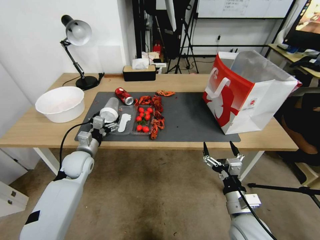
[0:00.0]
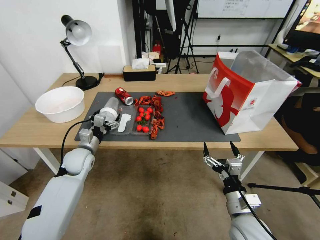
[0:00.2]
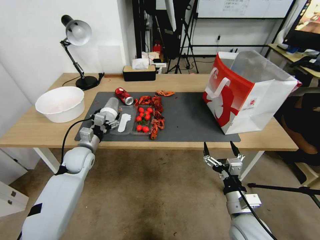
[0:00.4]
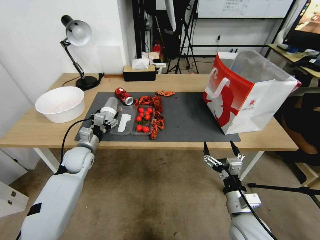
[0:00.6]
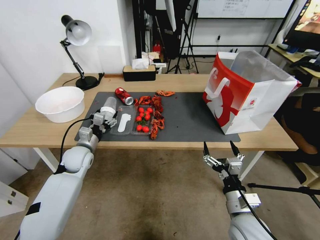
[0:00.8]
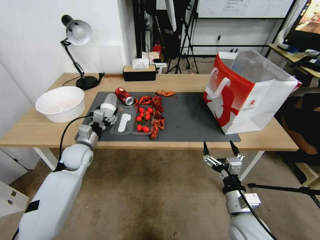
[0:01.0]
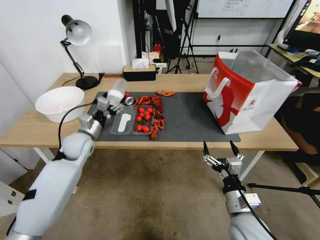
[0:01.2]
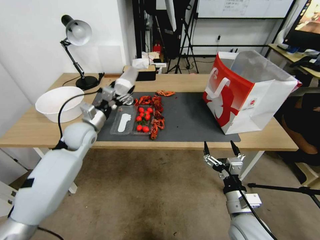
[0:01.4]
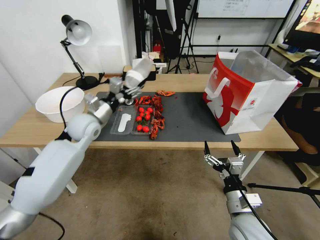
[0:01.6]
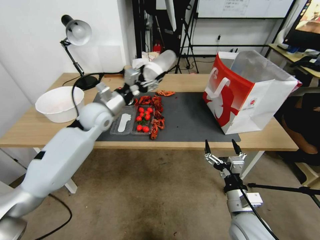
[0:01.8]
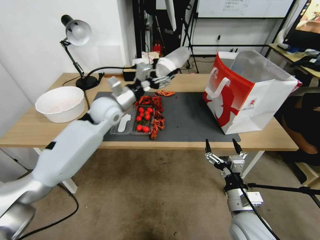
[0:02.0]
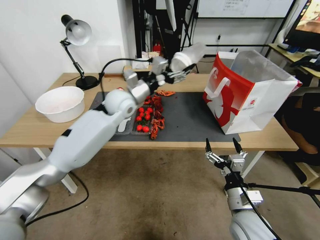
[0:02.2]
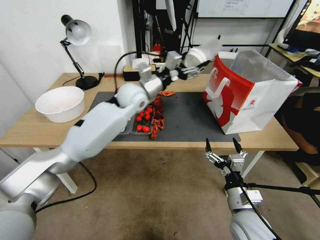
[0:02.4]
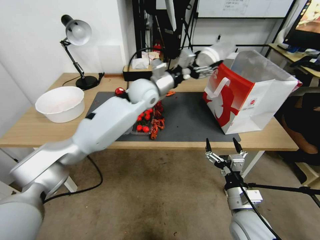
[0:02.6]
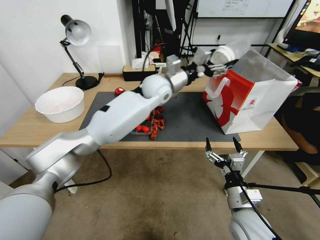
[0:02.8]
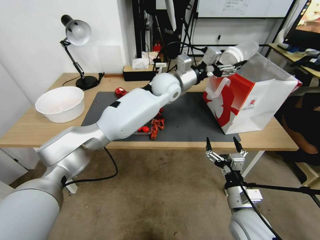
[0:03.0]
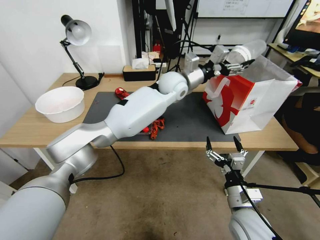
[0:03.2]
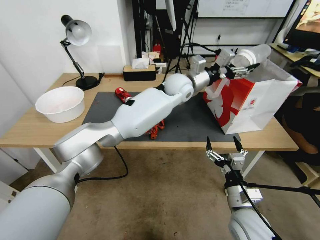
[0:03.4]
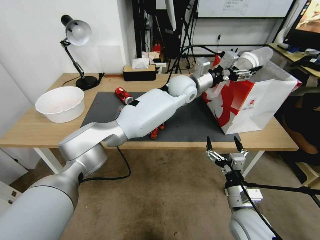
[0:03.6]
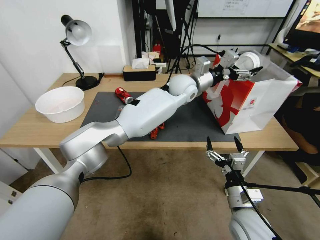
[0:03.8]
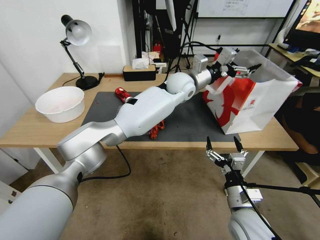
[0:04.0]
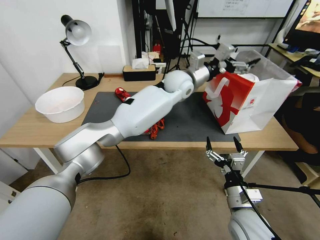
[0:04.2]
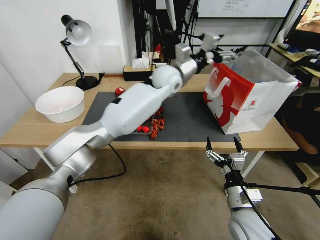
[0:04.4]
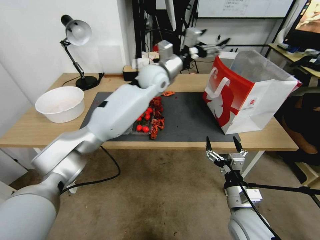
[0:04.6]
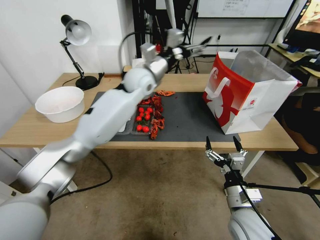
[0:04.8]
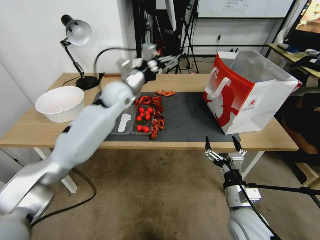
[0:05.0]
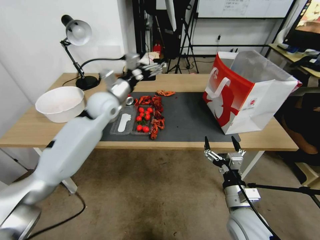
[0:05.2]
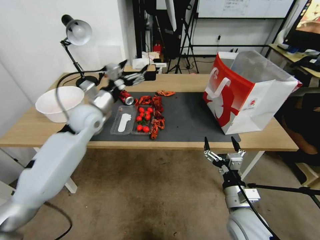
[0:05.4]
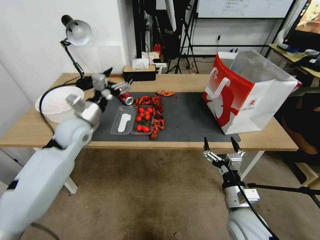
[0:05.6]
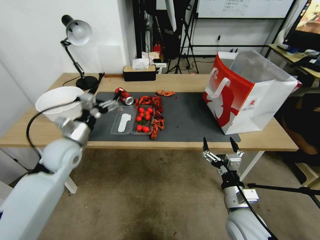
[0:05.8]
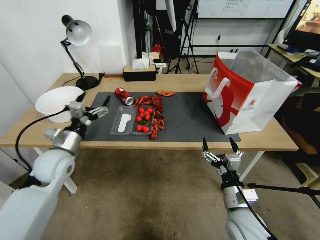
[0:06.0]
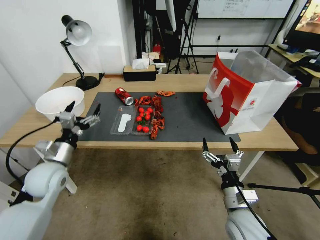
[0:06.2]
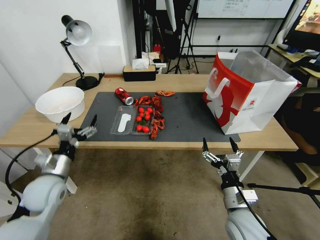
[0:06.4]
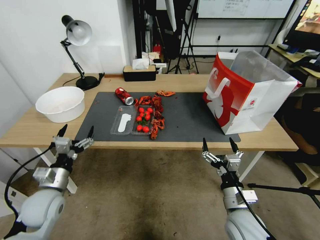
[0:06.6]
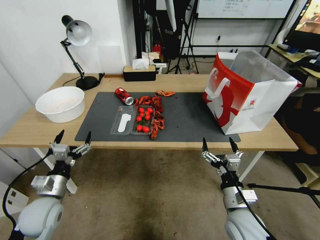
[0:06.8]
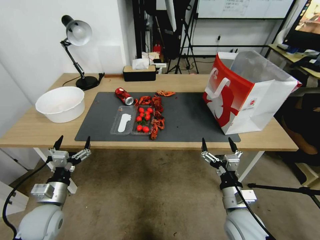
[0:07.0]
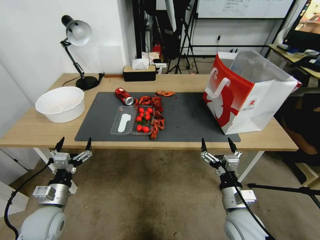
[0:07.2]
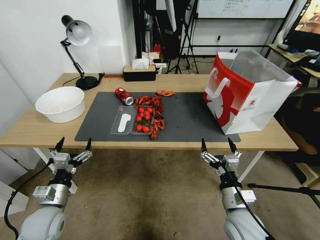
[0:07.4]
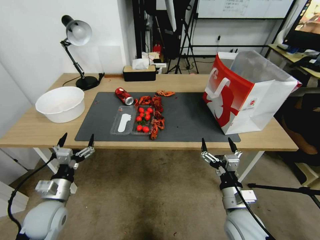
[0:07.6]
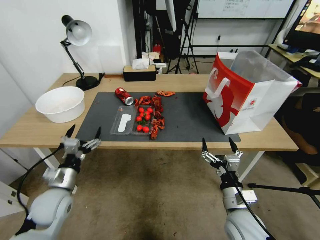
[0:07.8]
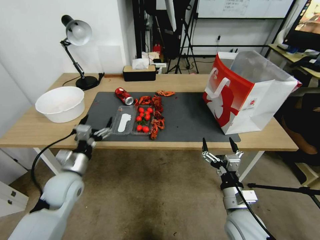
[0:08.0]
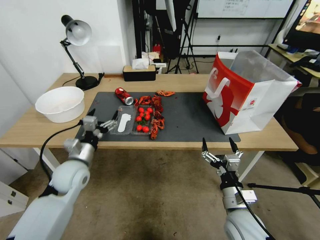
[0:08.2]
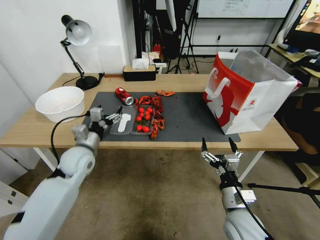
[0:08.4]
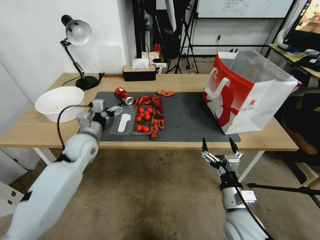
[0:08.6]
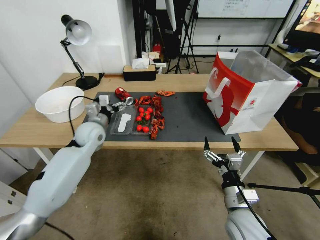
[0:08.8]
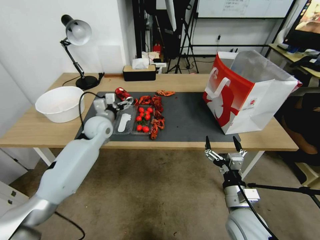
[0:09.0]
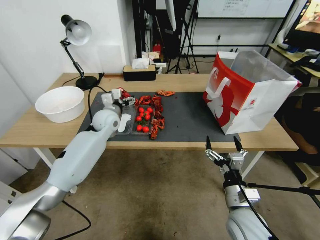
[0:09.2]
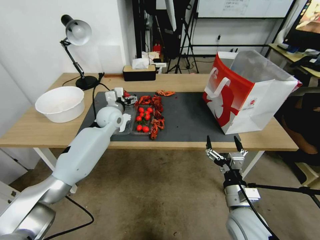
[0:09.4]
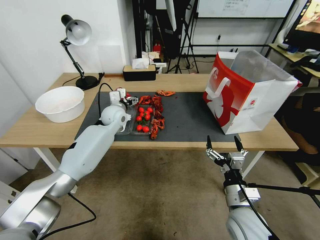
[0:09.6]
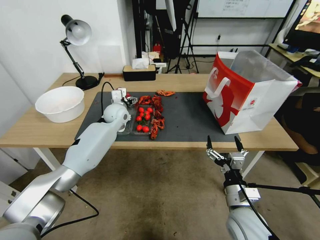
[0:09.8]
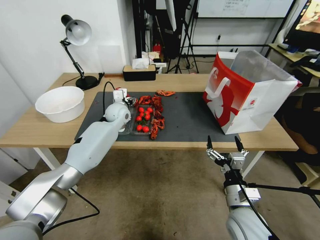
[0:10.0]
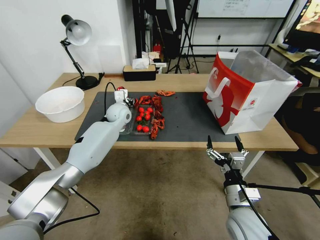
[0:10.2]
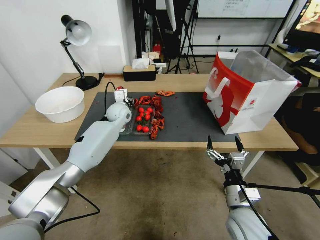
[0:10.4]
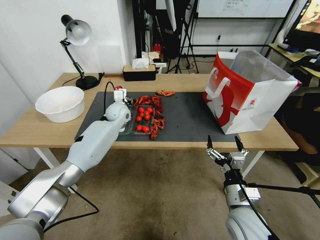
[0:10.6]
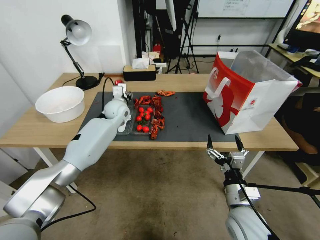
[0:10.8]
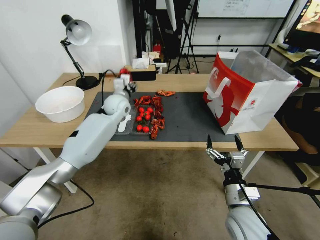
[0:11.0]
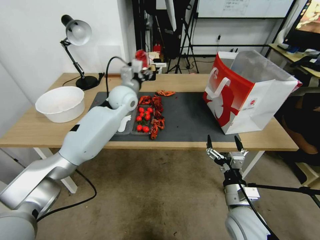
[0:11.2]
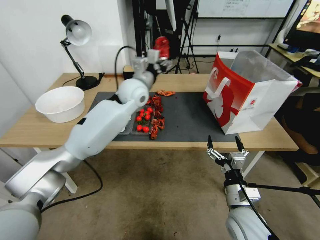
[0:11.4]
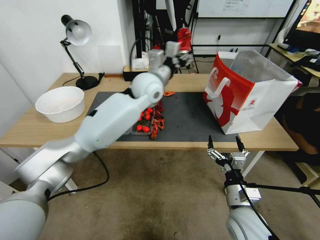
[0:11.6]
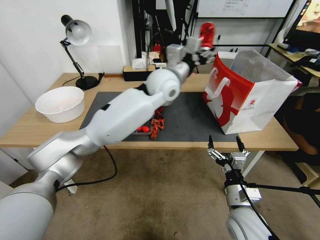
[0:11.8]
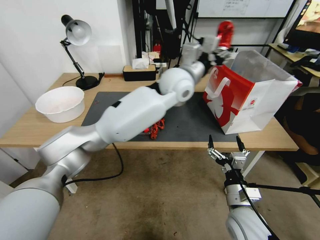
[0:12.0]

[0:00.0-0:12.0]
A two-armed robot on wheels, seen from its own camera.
0:00.0 to 0:01.6: The left gripper travels upward and forward by some 15 cm, and closes up.
0:01.6 to 0:03.0: The left gripper travels to the right by about 25 cm.
0:03.0 to 0:04.4: The left gripper opens its fingers.
0:04.4 to 0:06.0: The left gripper heads to the left, backward and downward, covering approximately 40 cm.
0:06.0 to 0:07.6: The left gripper moves backward and downward, roughly 15 cm.
0:07.6 to 0:09.0: The left gripper heads forward, covering about 25 cm.
0:09.0 to 0:10.4: The left gripper is displaced forward and to the right by some 10 cm, and closes.
0:10.4 to 0:12.0: The left gripper shifts roughly 25 cm upward and to the right.

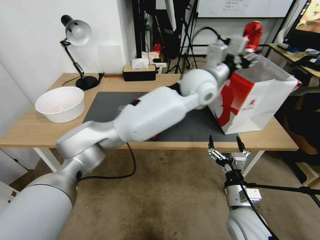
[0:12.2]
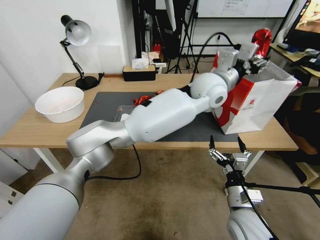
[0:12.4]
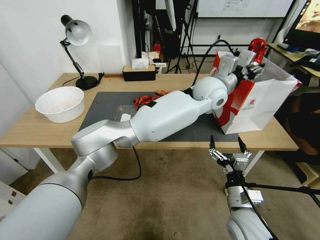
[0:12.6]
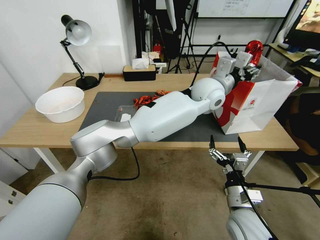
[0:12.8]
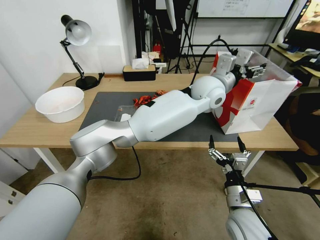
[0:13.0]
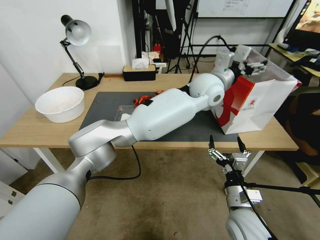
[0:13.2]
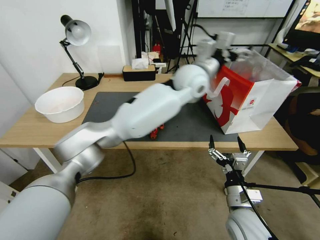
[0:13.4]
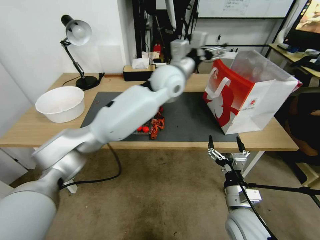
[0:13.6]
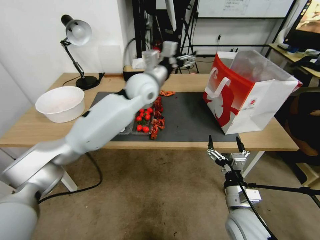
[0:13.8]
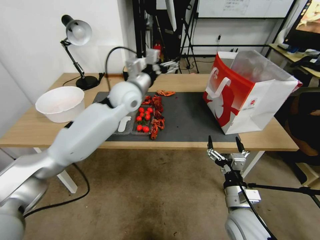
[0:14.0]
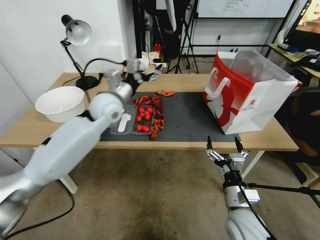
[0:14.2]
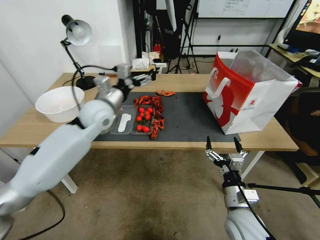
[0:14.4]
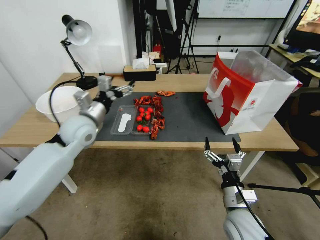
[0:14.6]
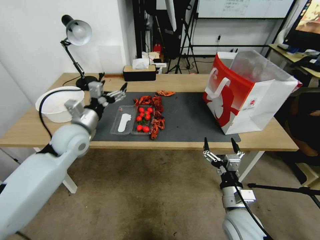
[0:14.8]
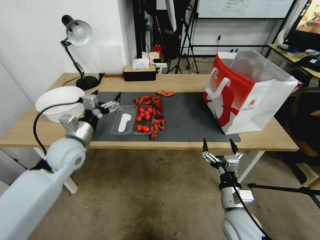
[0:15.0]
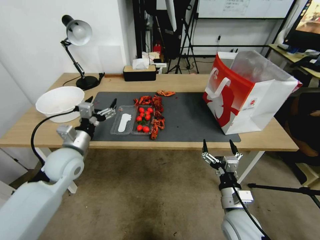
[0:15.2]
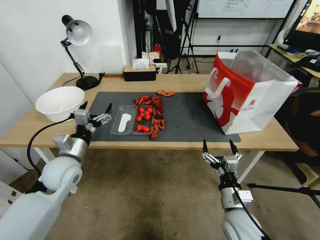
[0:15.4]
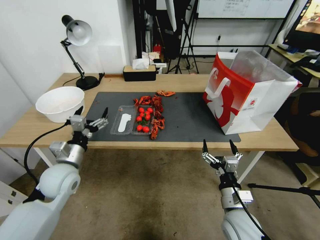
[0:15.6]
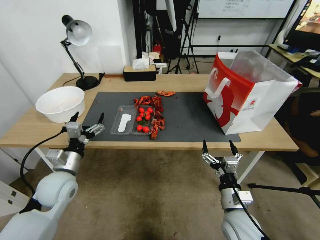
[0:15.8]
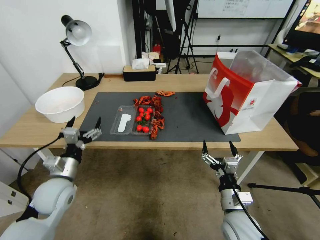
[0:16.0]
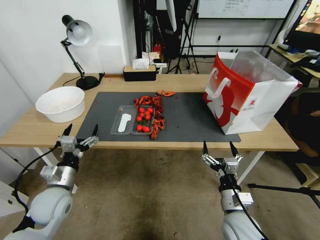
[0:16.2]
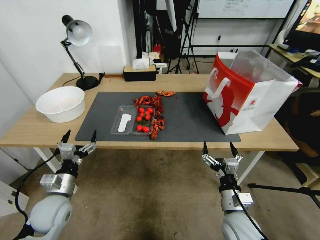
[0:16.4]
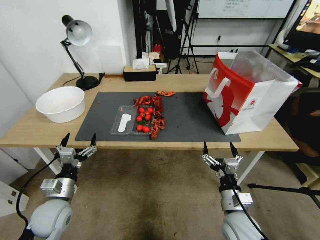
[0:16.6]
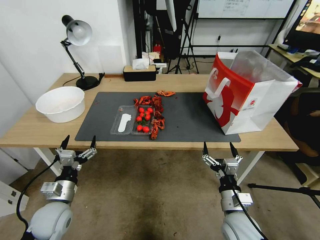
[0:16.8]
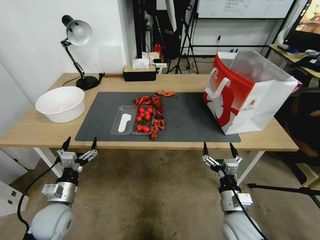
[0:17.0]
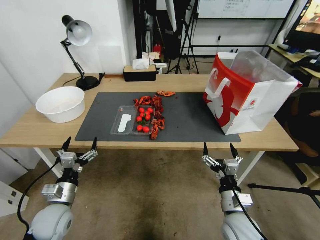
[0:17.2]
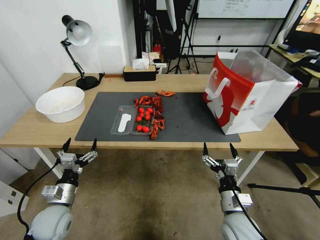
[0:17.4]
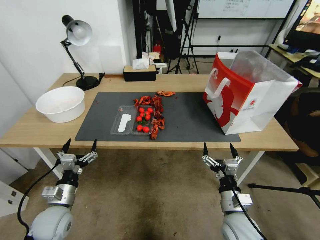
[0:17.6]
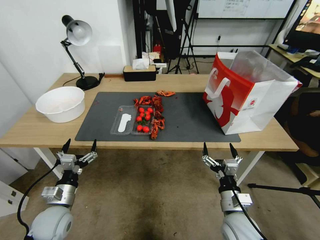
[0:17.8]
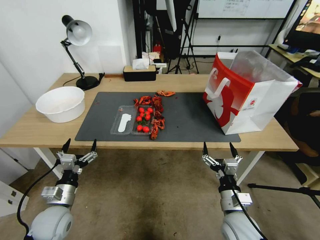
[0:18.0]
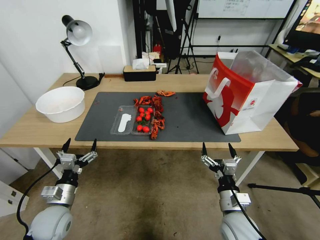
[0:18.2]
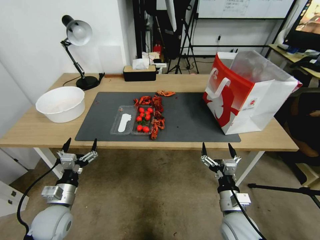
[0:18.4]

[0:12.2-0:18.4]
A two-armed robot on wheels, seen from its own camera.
0:12.2 to 0:13.8: The left gripper shifts some 10 cm to the left, and opens up.
0:13.8 to 0:15.4: The left gripper is displaced to the left, backward and downward by some 35 cm.
0:15.4 to 0:16.8: The left gripper goes some 15 cm downward and backward.
0:16.8 to 0:18.4: The grippers stay close to where they were, moving slightly.

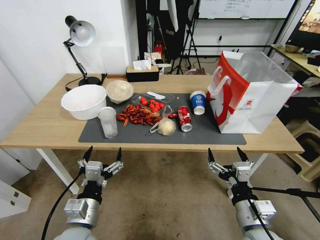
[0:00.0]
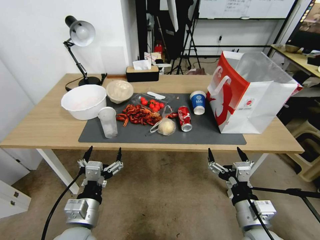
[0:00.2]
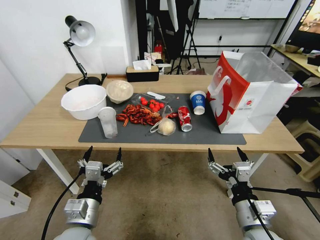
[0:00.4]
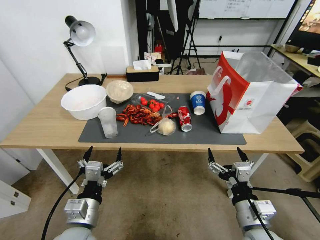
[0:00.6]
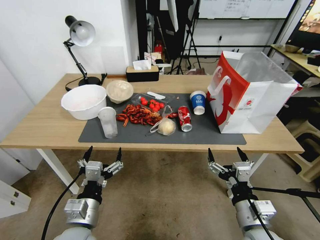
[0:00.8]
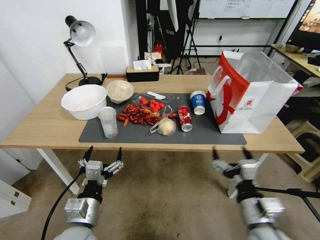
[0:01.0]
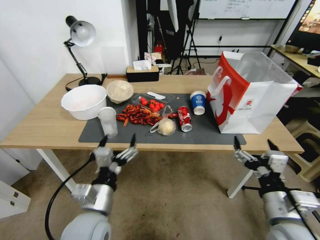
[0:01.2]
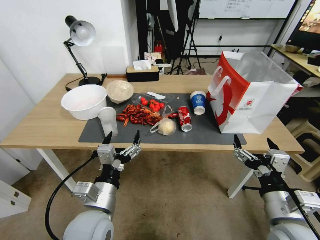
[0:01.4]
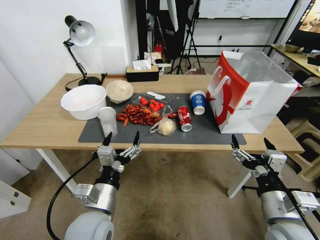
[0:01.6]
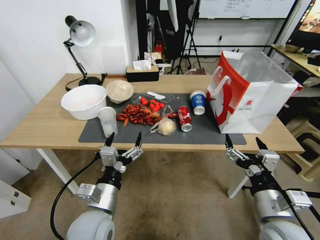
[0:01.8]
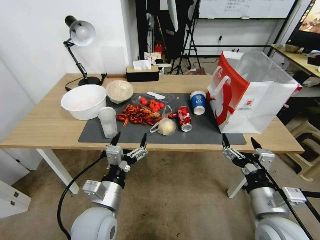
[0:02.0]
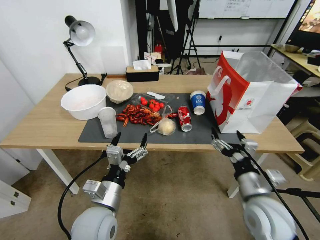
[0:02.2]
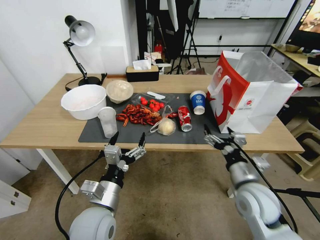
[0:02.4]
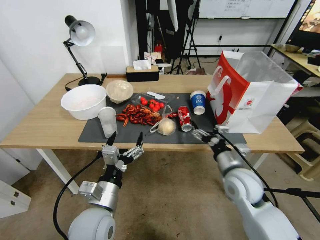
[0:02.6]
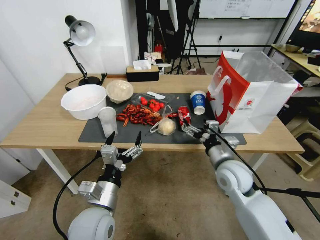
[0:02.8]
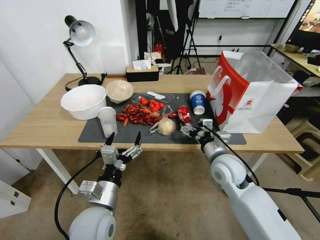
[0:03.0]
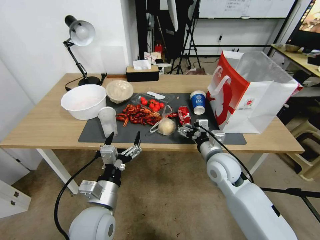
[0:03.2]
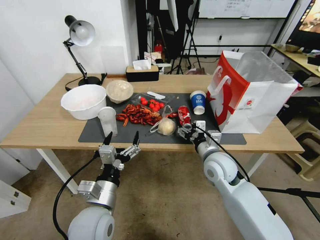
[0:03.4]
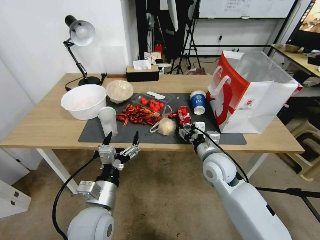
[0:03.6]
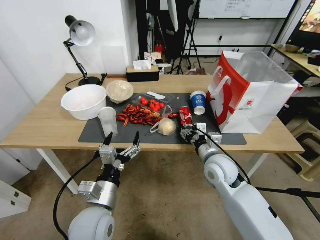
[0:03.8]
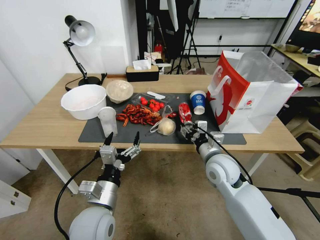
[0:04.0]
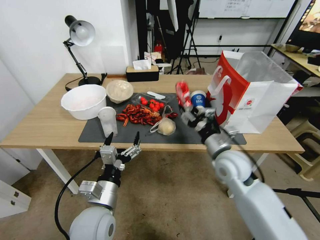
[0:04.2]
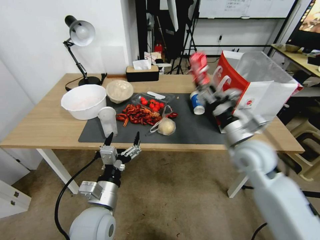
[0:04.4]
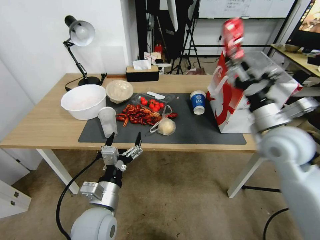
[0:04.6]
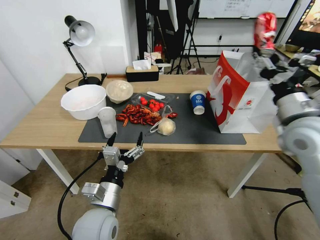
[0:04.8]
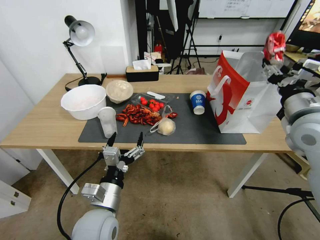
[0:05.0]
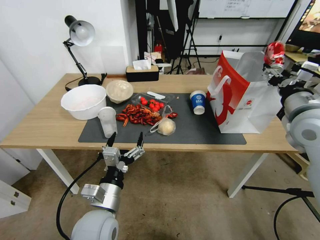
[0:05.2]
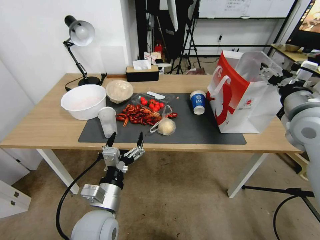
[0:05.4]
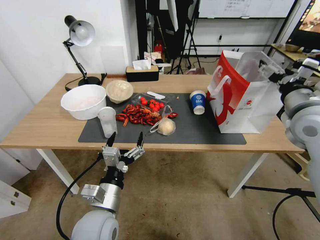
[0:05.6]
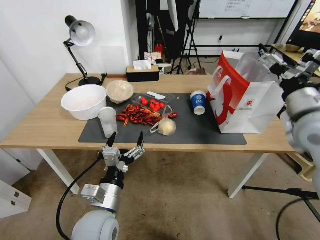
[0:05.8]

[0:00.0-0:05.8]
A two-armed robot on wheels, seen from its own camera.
0:01.4 to 0:02.8: The right gripper moves forward, roughly 15 cm.
0:02.8 to 0:04.4: The right gripper is displaced upward by some 5 cm, and closes its fingers.
0:04.4 to 0:05.8: The right gripper travels upward and to the right by about 15 cm, and opens.
